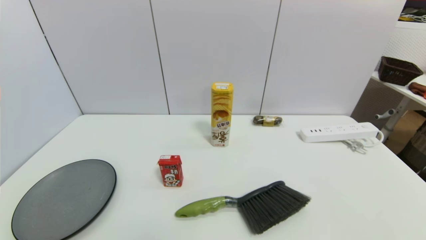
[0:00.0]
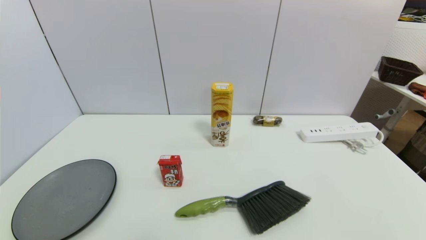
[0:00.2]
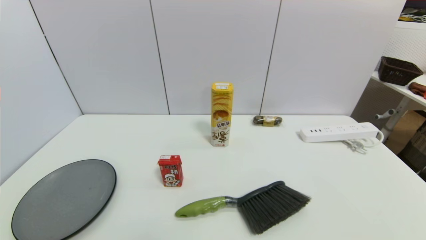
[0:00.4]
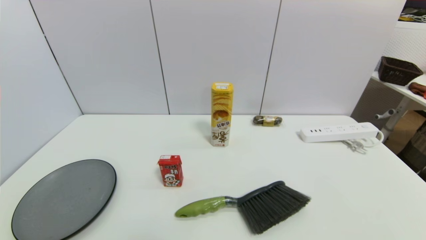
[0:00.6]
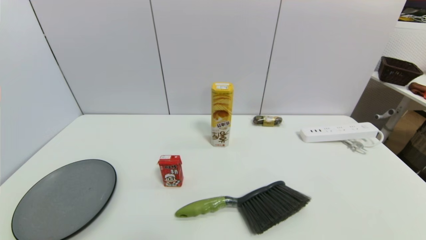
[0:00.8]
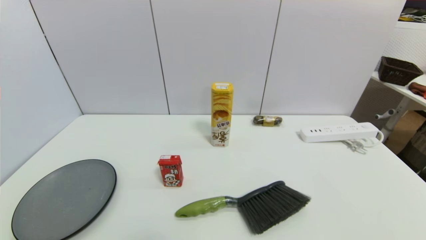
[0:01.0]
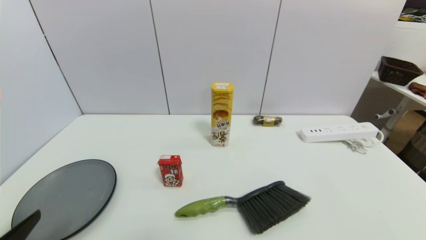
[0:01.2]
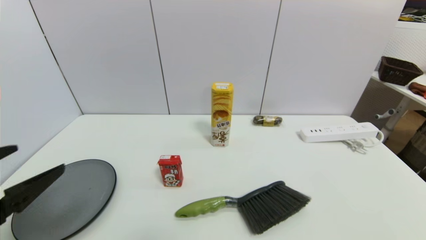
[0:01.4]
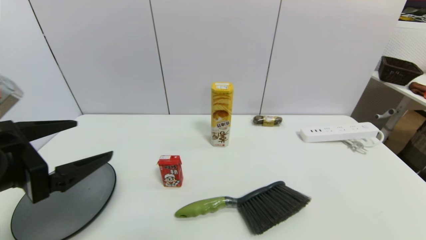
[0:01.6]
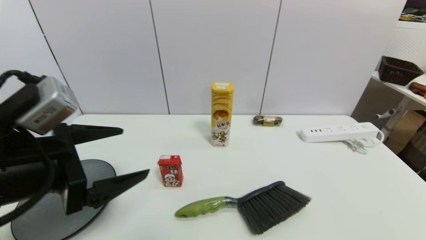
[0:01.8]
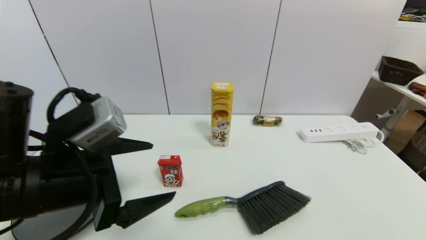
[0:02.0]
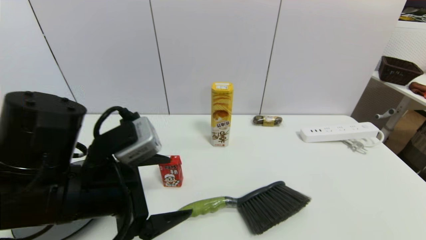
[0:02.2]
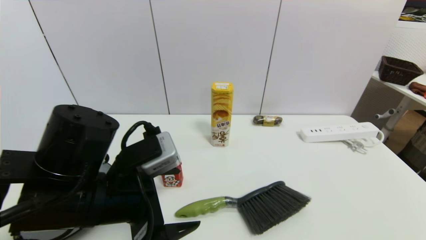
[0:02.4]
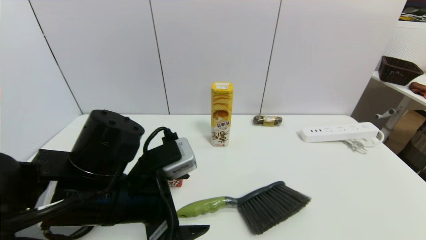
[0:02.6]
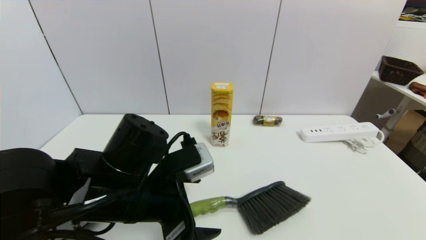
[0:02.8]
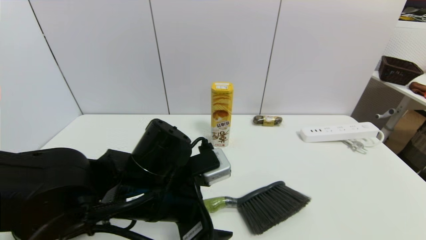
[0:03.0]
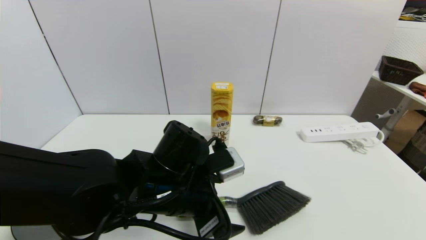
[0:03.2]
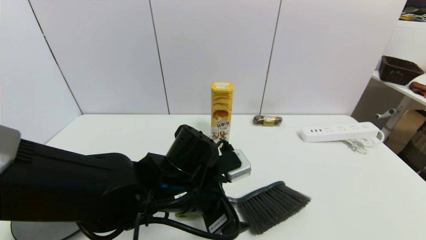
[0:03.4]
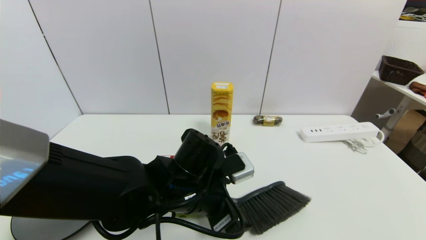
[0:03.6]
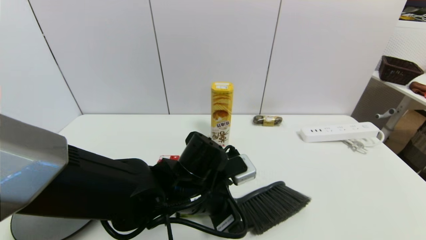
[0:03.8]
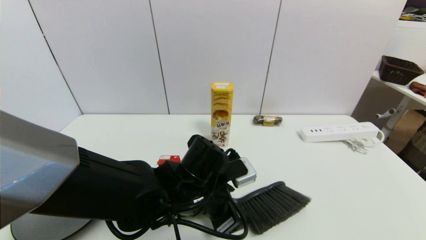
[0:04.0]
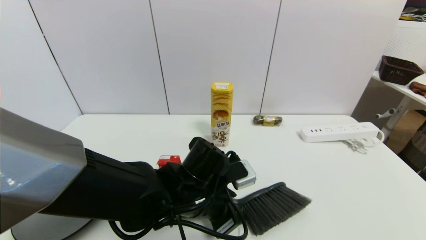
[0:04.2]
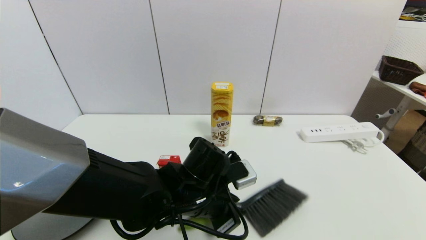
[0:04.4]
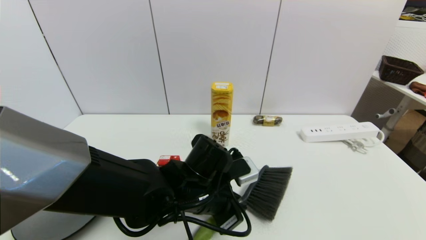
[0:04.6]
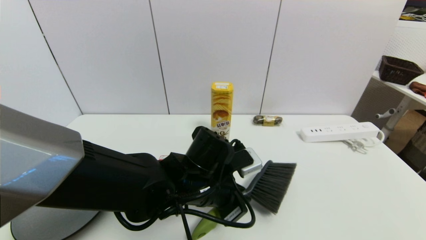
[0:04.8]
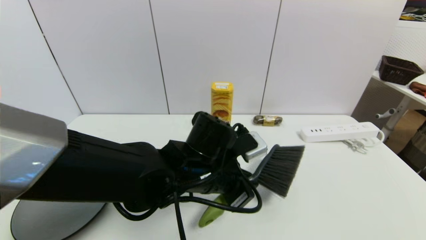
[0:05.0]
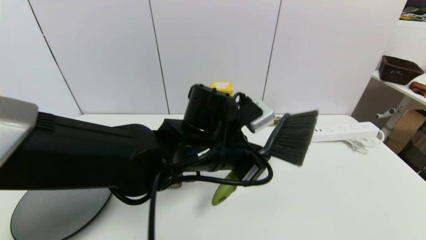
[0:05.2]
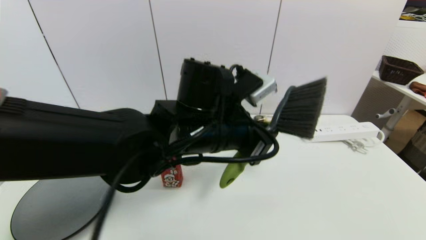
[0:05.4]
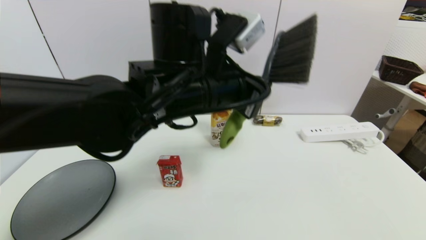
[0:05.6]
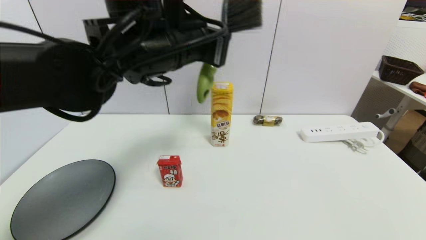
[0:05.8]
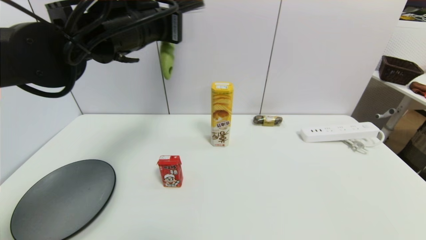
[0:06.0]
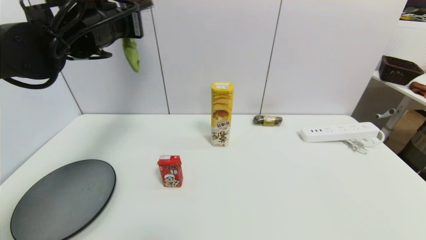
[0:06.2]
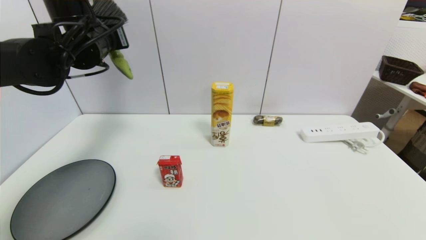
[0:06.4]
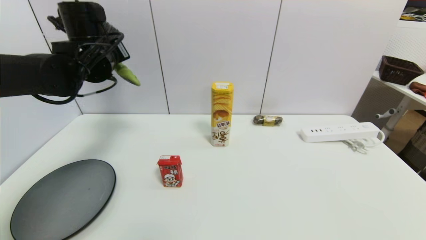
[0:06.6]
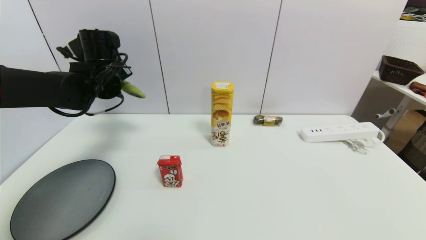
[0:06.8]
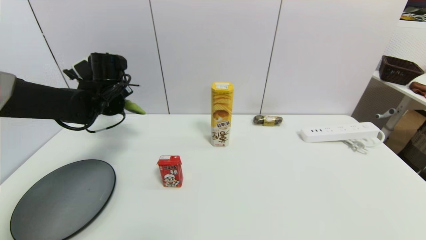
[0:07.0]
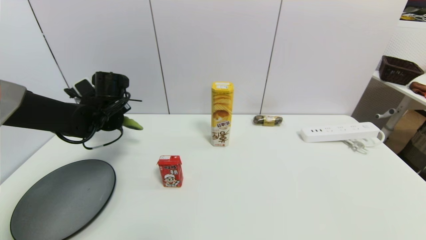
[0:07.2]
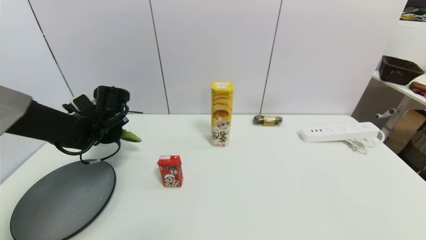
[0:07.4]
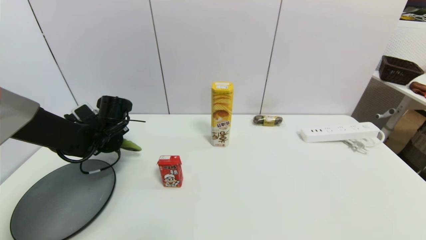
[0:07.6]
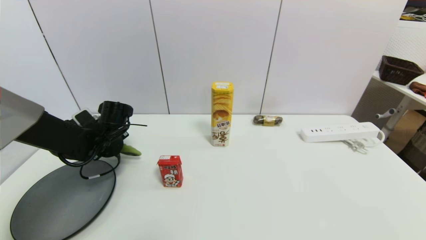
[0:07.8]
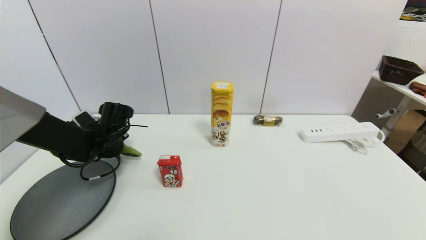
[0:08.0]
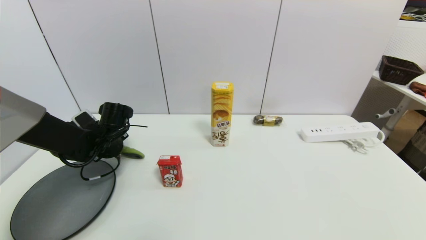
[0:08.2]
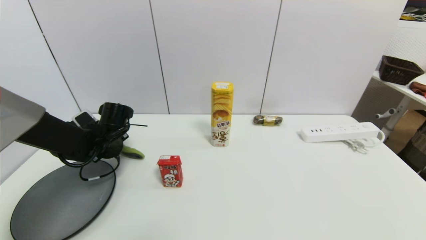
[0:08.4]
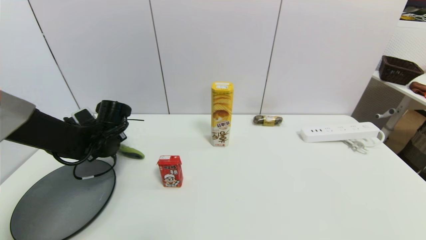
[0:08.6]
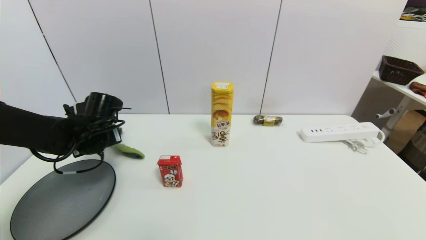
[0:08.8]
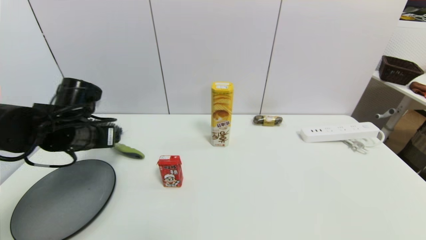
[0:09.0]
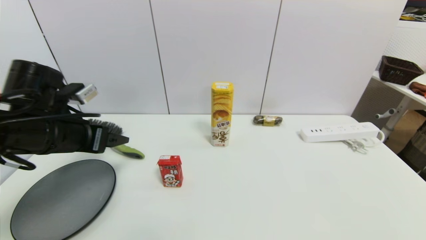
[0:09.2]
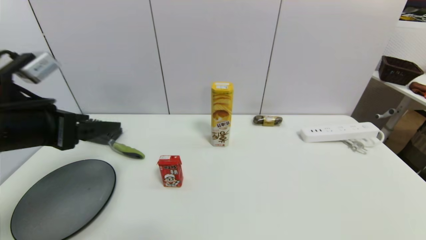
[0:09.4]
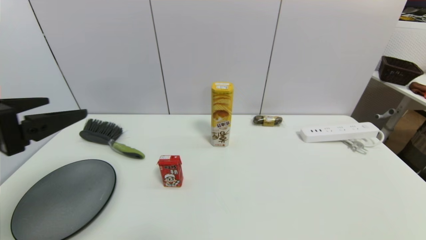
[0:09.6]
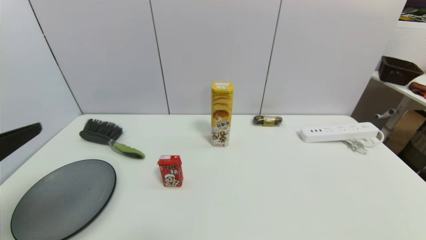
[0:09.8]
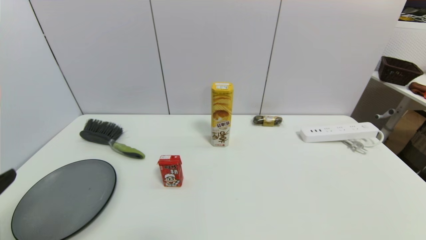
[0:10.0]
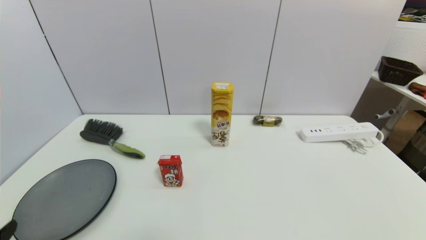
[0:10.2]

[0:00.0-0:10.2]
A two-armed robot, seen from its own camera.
Task of the whole recording: put the brush in the designated position.
Step, 0:01.2 to 0:04.8: Grasp the brush with left gripper.
Step, 0:05.0 to 0:08.6: Place the brush on the table with left gripper.
0:00.0 to 0:01.4: The left gripper moves upward and forward, about 20 cm.
0:01.4 to 0:03.0: The left gripper travels to the right and forward by roughly 25 cm.
0:03.0 to 0:04.4: The left gripper heads downward and to the right, covering about 10 cm, and closes its fingers.
0:04.4 to 0:05.8: The left gripper travels upward by some 25 cm.
0:05.8 to 0:07.2: The left gripper shifts about 25 cm downward, to the left and forward.
0:07.2 to 0:08.8: The left gripper shifts approximately 5 cm backward, and opens up.
0:08.8 to 0:10.2: The left gripper heads backward, covering roughly 35 cm.

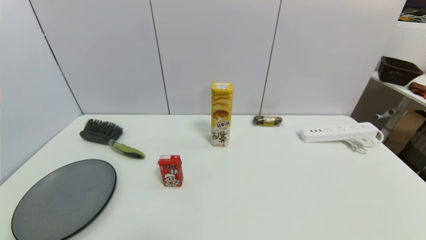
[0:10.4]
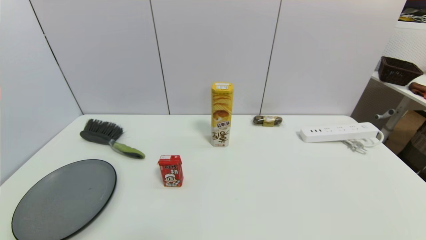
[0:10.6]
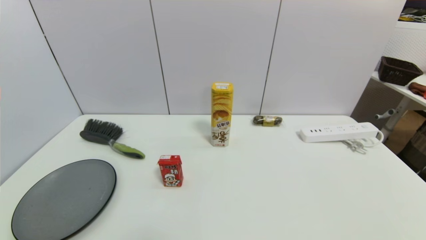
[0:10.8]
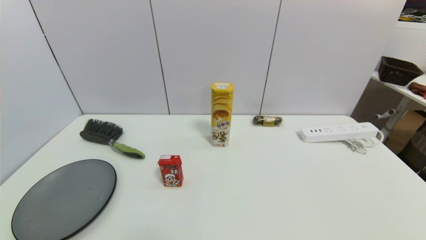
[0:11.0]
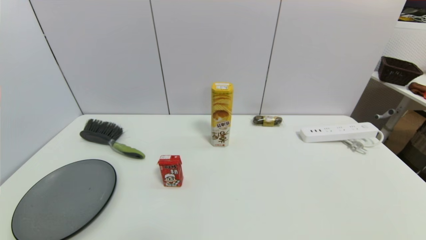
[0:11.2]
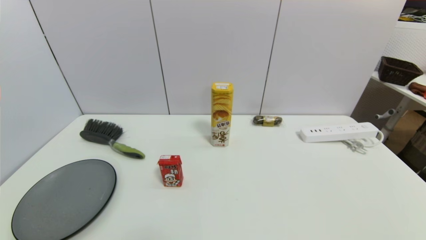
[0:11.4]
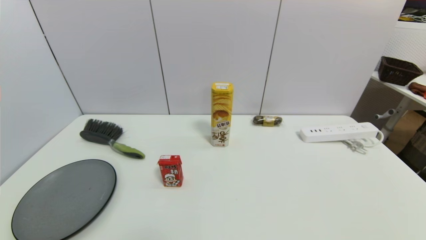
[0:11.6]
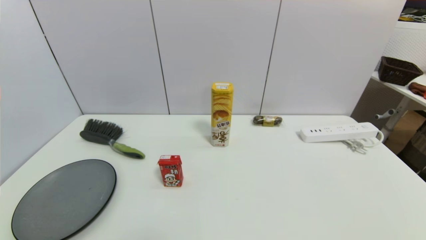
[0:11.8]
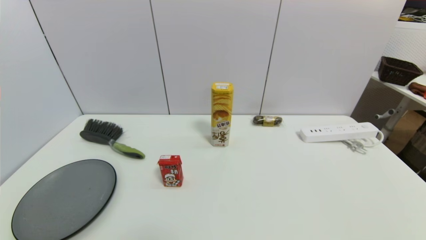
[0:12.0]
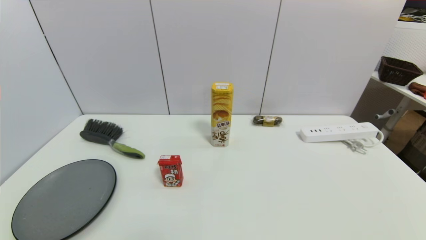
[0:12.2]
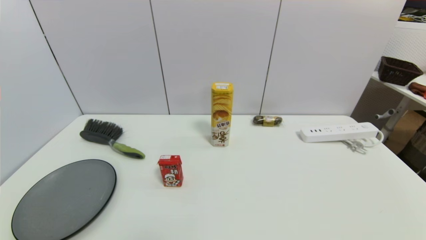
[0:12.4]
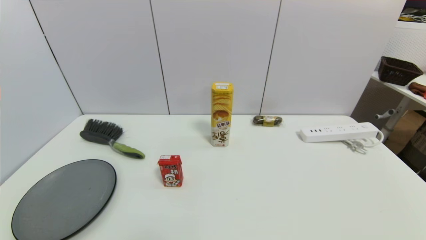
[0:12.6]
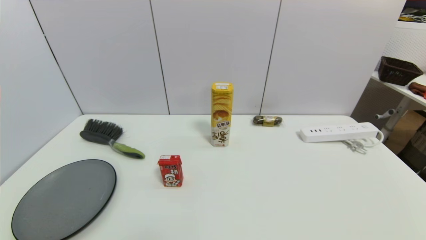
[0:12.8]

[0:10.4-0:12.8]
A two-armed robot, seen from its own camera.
Task of the whole recording: put the brush in the designated position.
0:11.6 to 0:12.8: Both grippers stay put.
